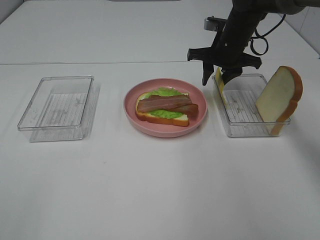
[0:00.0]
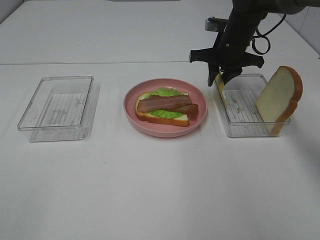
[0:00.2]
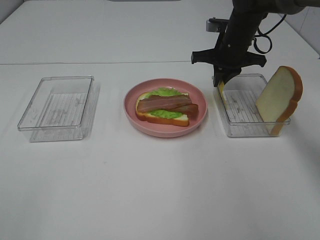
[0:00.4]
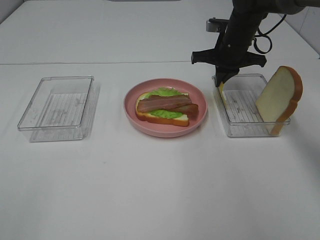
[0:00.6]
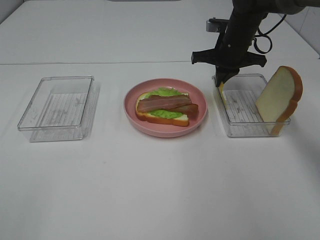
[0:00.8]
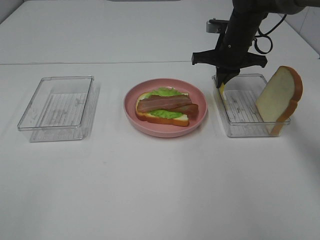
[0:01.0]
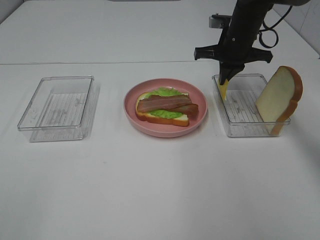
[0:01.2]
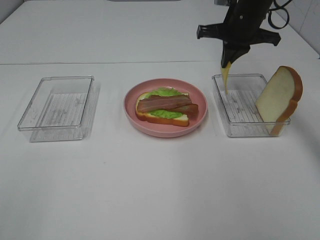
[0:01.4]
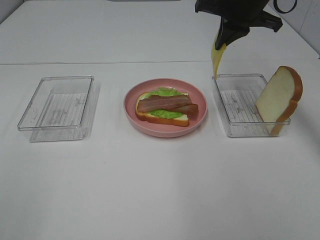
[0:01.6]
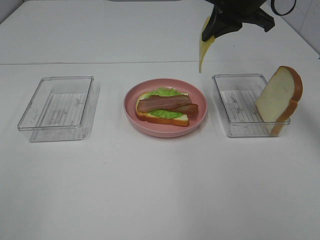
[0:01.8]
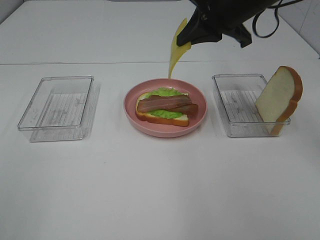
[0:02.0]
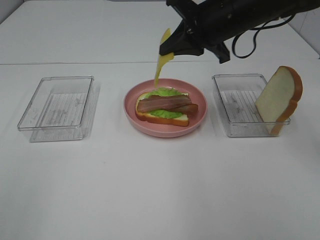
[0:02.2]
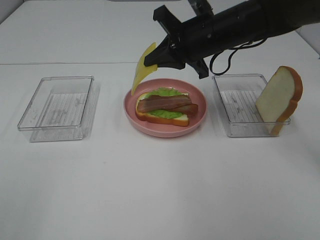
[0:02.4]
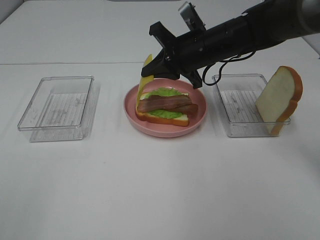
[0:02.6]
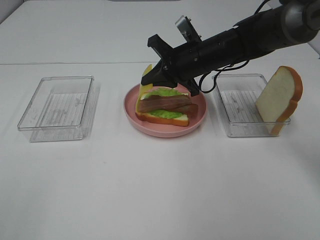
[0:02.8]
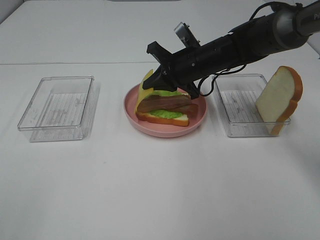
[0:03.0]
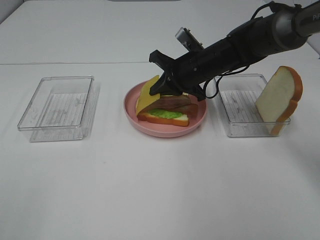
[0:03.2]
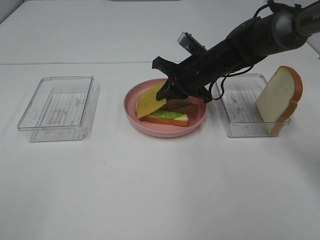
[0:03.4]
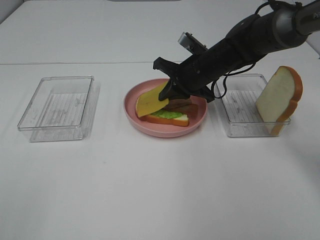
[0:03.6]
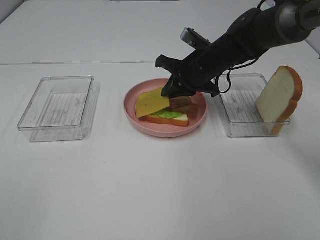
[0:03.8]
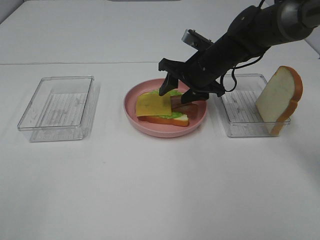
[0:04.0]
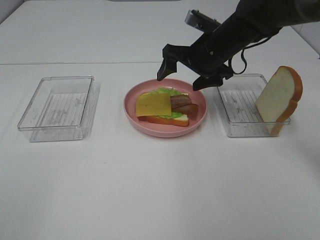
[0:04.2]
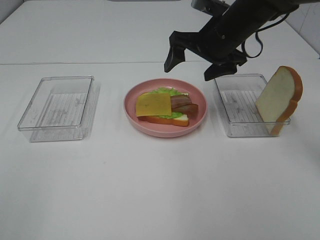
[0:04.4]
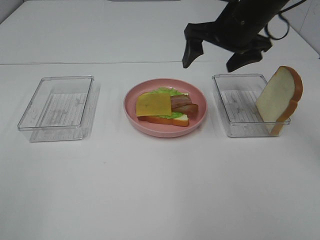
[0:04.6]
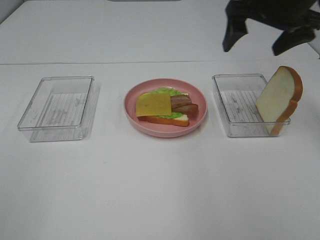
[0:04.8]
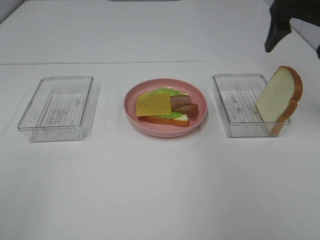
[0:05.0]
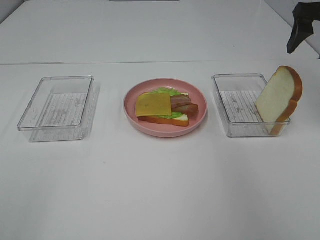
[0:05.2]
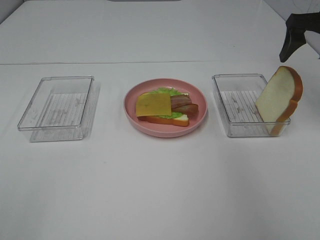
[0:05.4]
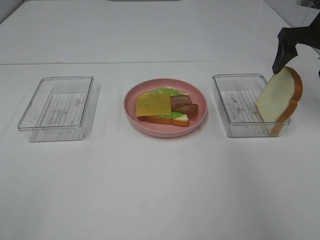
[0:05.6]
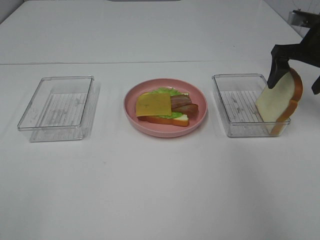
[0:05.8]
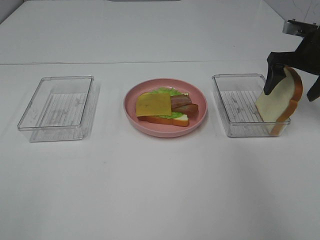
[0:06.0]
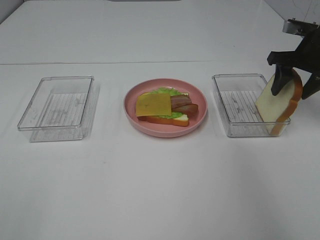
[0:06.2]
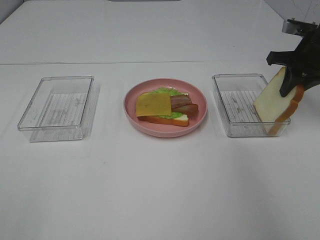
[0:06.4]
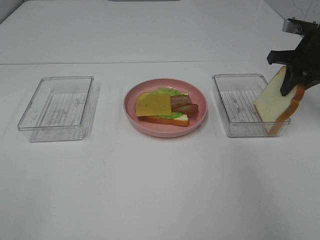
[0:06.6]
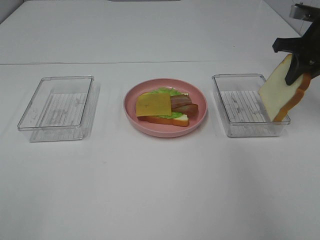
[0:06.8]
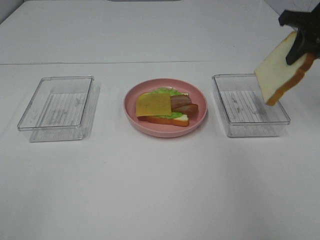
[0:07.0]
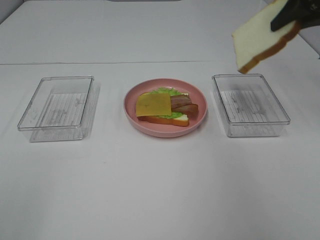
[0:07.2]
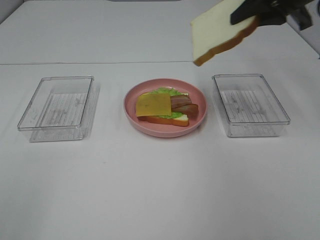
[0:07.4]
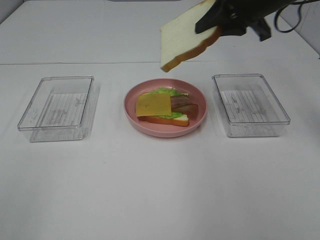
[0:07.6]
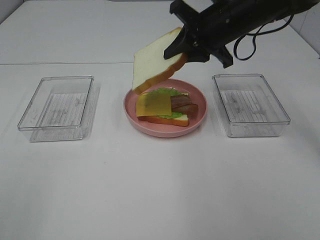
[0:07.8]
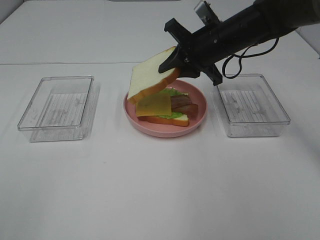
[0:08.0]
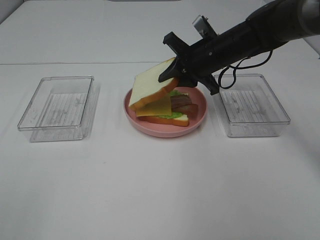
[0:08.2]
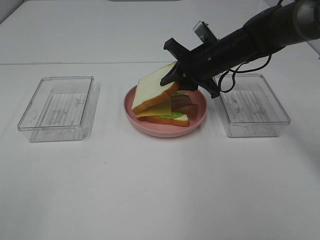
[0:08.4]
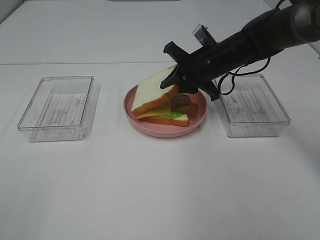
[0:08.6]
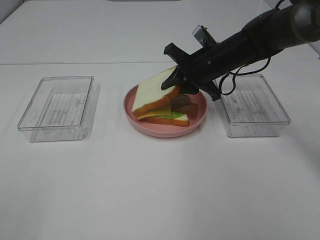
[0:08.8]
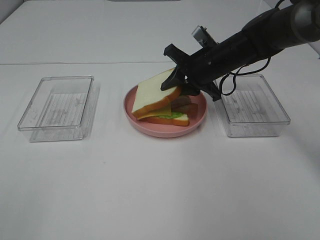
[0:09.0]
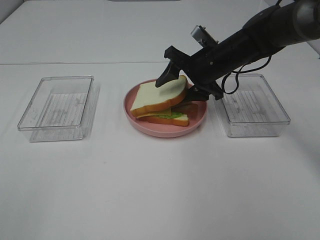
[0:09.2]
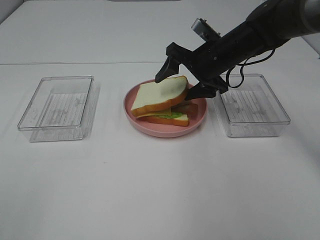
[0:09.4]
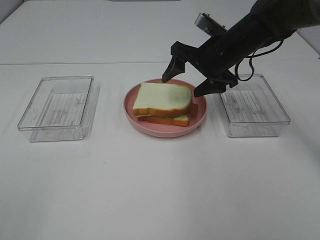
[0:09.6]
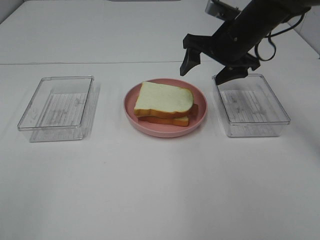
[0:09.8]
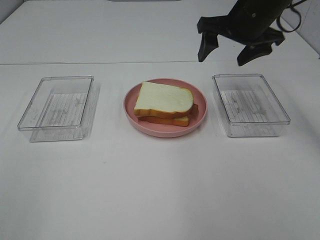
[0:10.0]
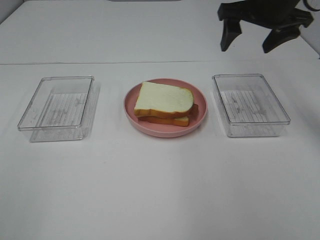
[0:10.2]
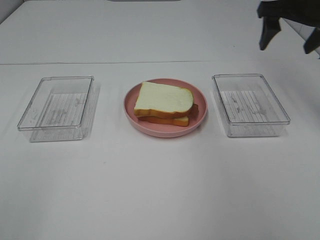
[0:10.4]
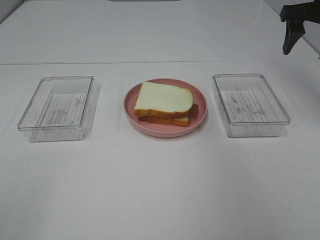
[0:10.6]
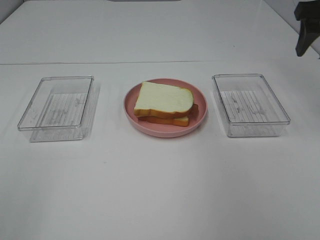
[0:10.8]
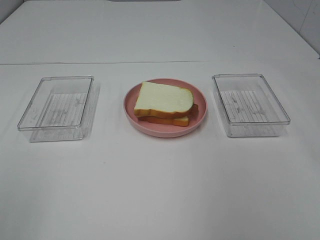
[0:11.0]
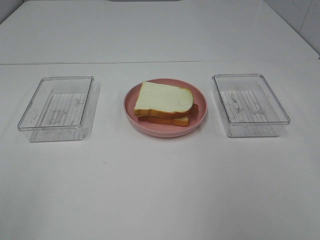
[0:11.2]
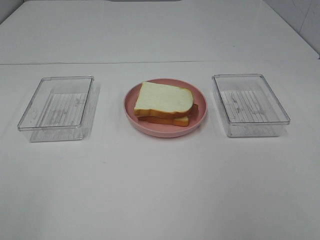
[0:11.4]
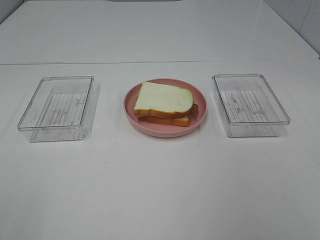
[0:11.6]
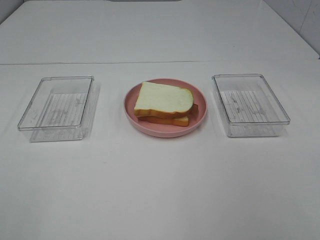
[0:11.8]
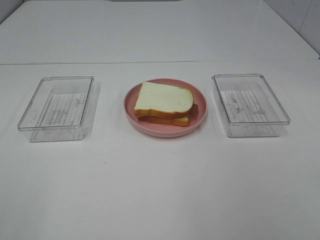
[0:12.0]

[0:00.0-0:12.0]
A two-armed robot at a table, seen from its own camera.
Task of the whole recording: Make sandwiches.
Step, 0:01.4 to 0:04.0: Right hand:place the cheese slice on top of the bacon.
Step, 0:04.2 to 0:06.8: Right hand:grab the bread slice.
Step, 0:07.0 to 0:09.8: Right hand:place the bread slice on the cheese slice.
0:00.0 to 0:01.6: The right gripper shifts approximately 10 cm upward, and closes.
0:01.6 to 0:03.0: The right gripper shifts about 15 cm downward and to the left.
0:03.0 to 0:04.4: The right gripper is displaced upward by roughly 10 cm, and opens its fingers.
0:04.4 to 0:06.0: The right gripper moves to the right, about 20 cm.
0:06.0 to 0:07.6: The right gripper goes about 15 cm to the left and upward, and closes up.
0:07.6 to 0:09.0: The right gripper is displaced downward by roughly 15 cm.
0:09.0 to 0:10.4: The right gripper heads upward and to the right, covering some 20 cm, and opens.
0:10.4 to 0:12.0: The right gripper moves backward, roughly 40 cm.

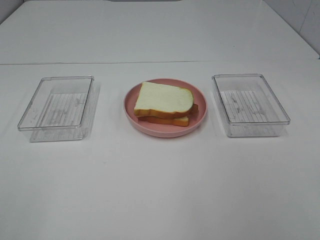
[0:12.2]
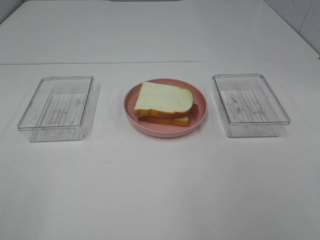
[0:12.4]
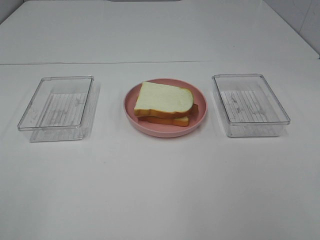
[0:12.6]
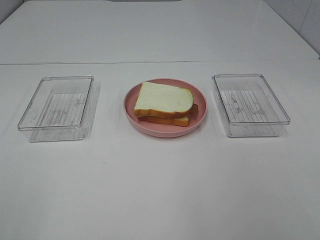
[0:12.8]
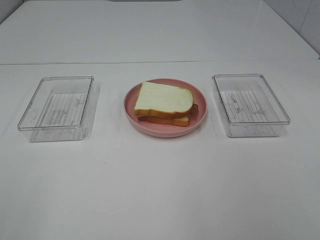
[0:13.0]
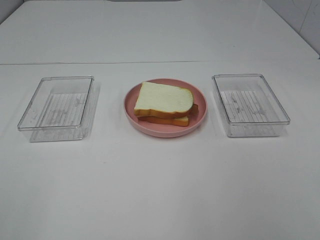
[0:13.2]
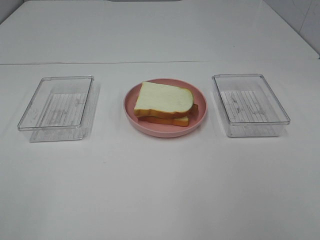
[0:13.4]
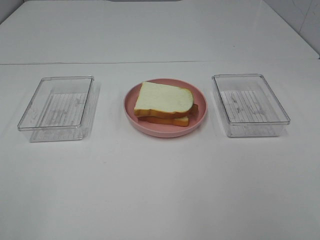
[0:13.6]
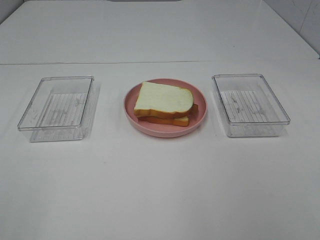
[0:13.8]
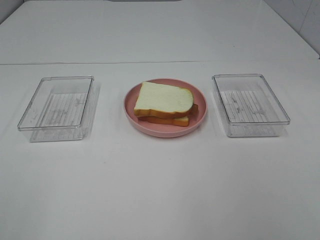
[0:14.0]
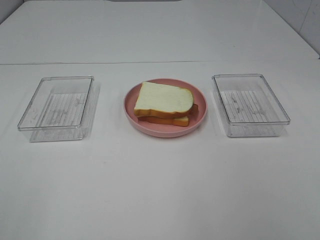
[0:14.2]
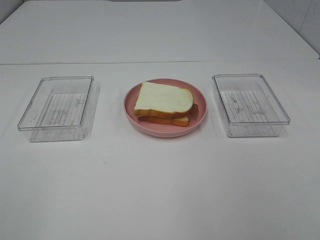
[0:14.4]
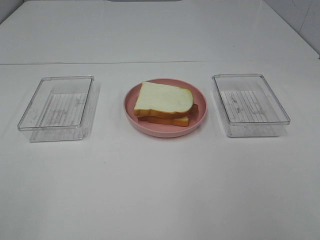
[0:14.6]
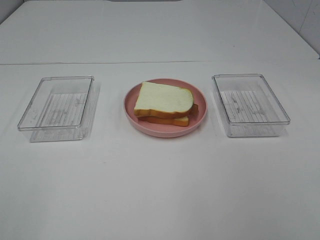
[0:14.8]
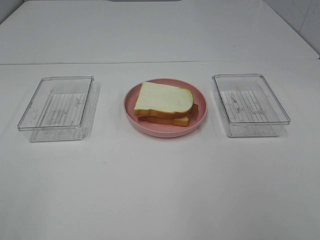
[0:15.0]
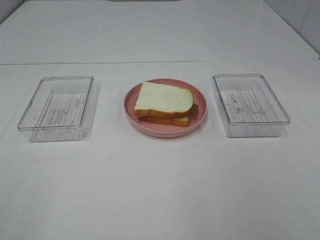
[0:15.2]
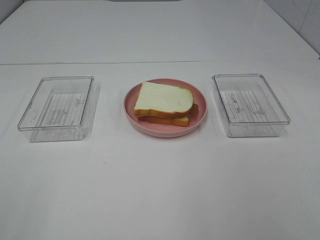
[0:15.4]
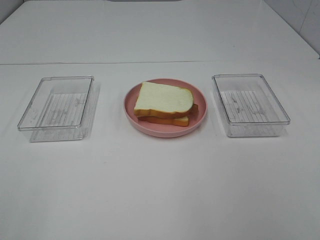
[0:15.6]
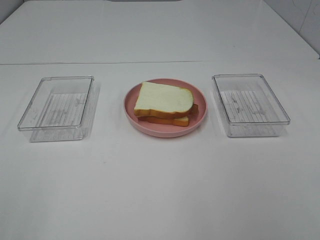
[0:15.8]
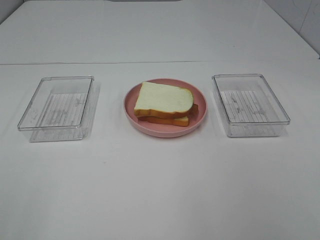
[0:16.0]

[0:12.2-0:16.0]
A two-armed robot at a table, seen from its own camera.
Task of the whole recording: Make sandwiches.
0:12.2 to 0:16.0: Neither gripper changes place.
